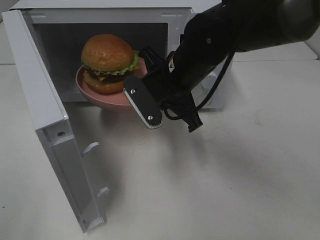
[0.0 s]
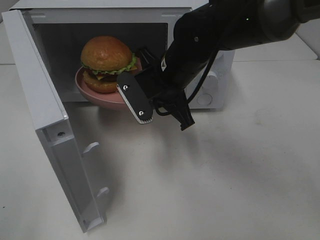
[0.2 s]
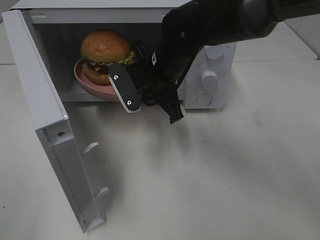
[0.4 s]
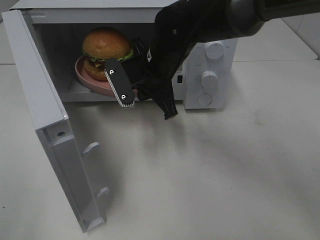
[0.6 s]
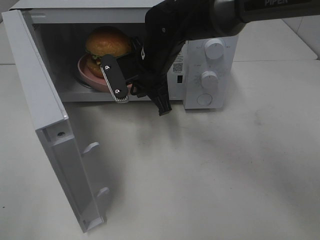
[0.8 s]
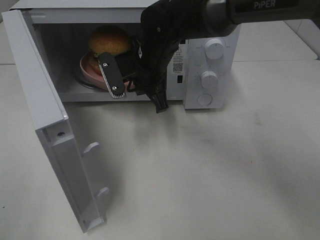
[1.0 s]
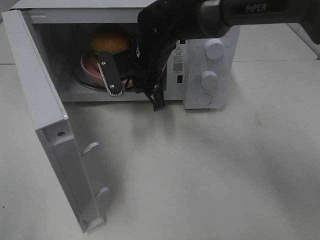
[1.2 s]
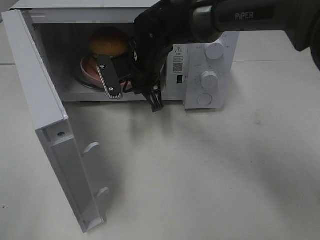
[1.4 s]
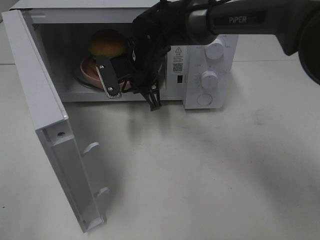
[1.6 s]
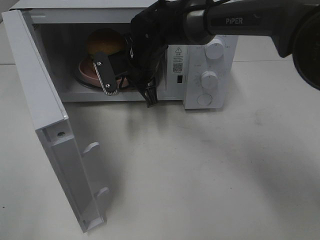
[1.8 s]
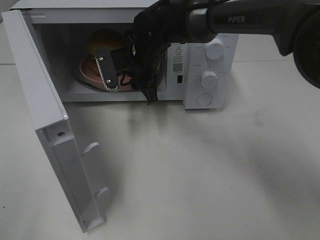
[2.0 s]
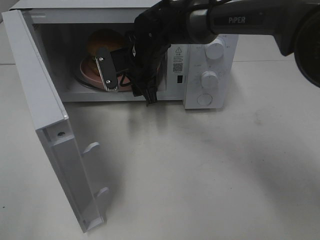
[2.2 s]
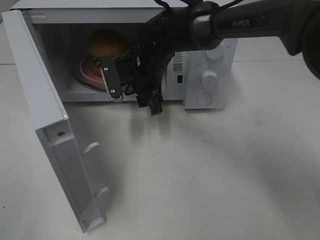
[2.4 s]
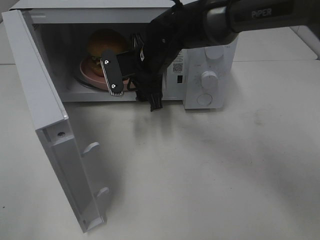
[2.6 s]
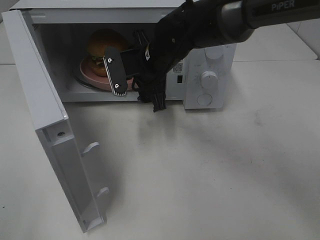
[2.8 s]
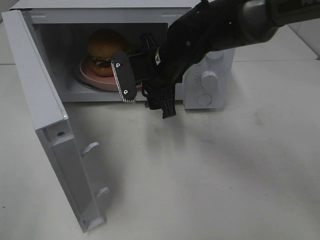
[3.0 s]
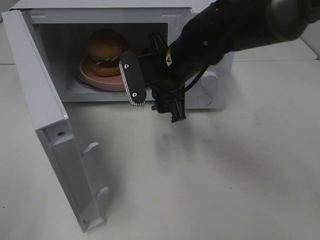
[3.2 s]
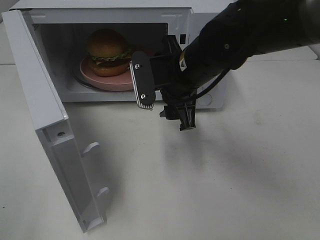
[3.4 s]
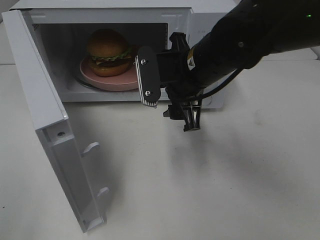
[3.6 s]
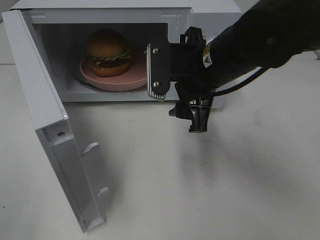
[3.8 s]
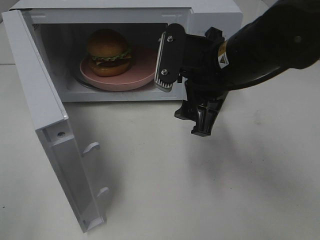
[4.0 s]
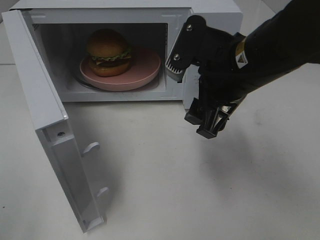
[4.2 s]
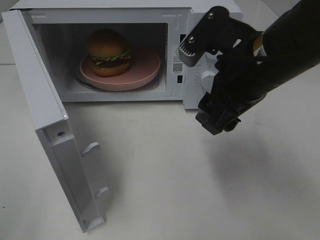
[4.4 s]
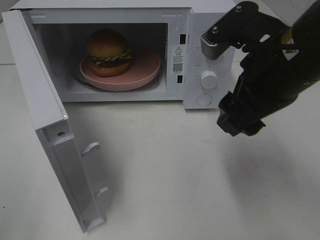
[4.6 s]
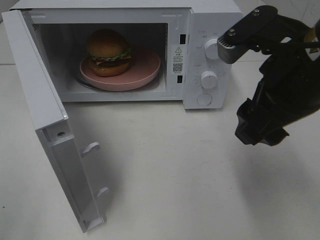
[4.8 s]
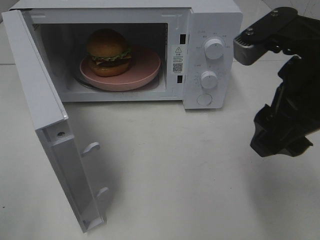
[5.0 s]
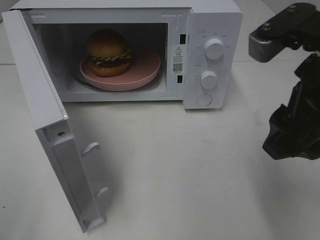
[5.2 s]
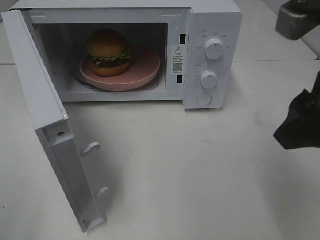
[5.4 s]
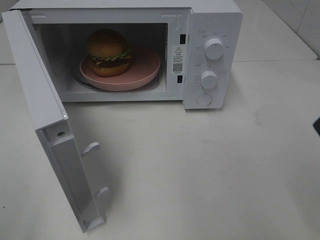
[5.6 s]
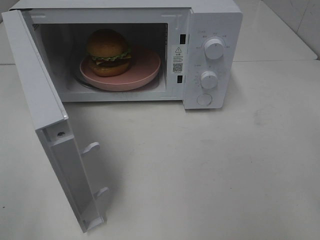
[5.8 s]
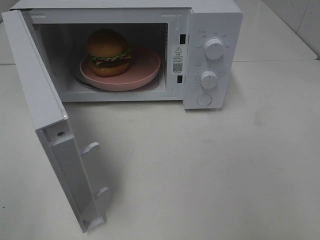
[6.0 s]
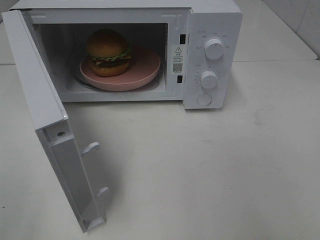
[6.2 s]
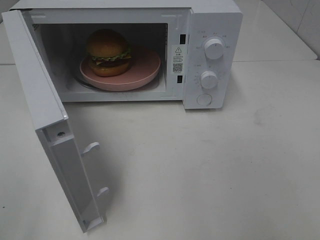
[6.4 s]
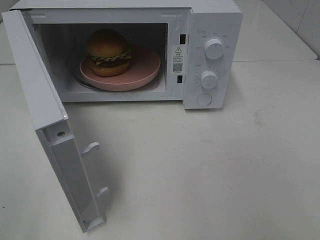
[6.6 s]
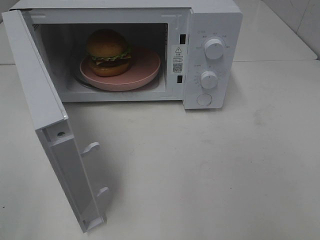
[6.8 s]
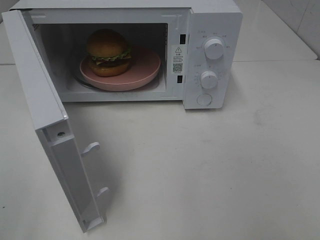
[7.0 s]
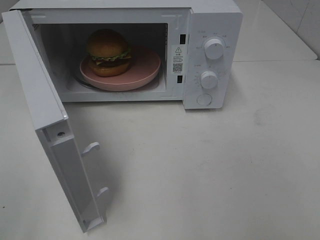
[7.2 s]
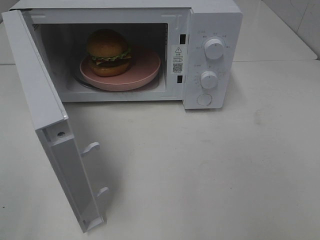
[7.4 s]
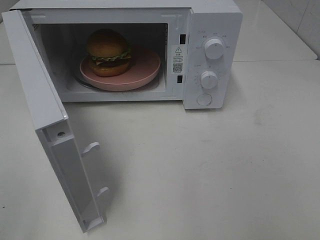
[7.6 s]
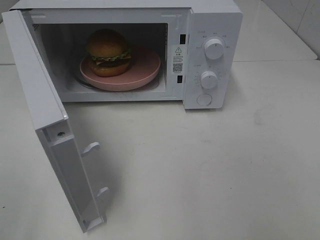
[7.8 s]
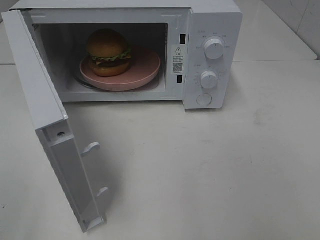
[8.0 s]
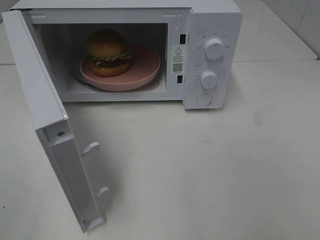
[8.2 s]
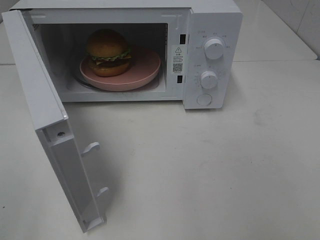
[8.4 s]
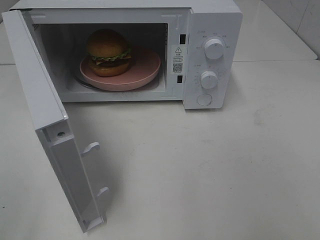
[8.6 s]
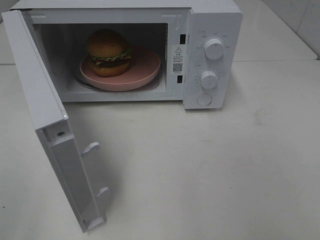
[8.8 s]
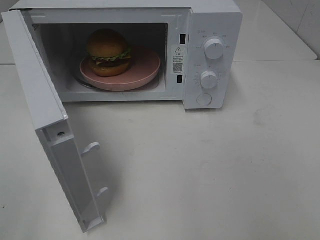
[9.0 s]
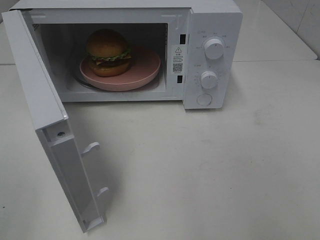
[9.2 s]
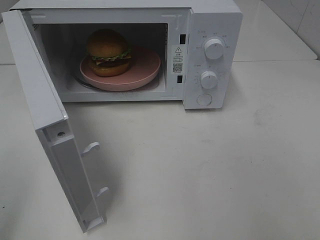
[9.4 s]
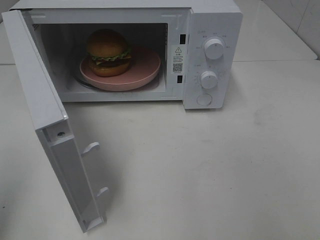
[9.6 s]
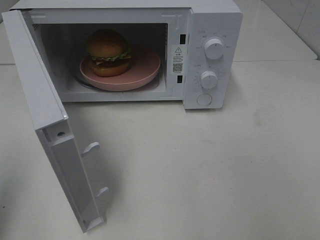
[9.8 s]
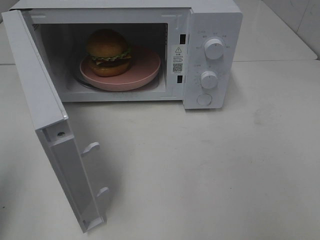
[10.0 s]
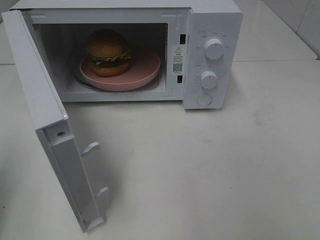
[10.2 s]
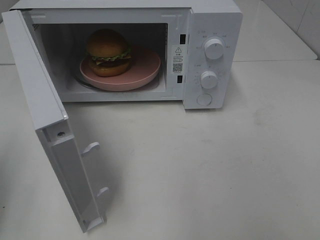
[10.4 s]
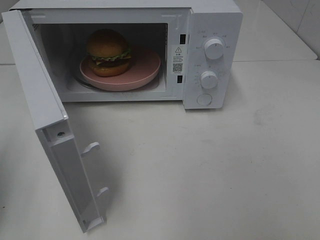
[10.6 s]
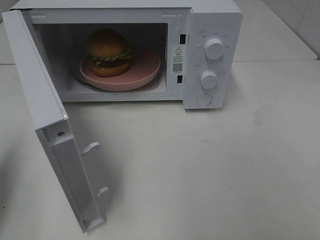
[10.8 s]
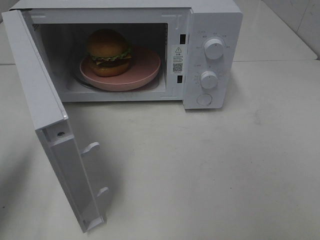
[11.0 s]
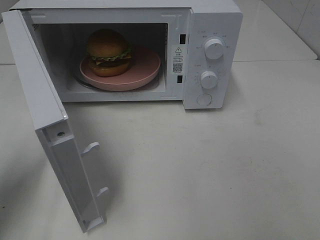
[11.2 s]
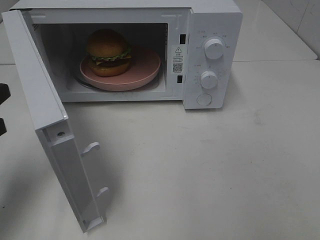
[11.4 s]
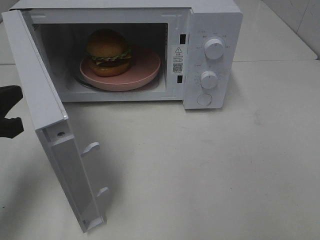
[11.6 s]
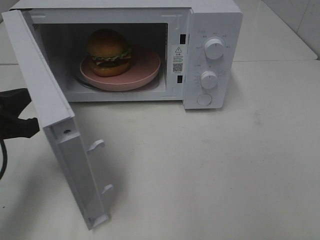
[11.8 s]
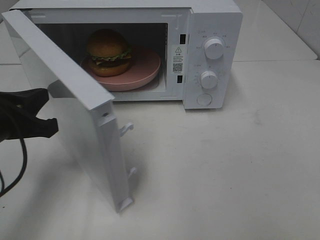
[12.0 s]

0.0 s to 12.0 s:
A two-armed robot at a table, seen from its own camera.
Task of the whole recording: Heat the burger.
Step, 0.0 to 2.8 s: Right hand: place the plate in the microwave.
0.0 to 1.6 s: The right gripper is displaced forward and to the left by some 10 cm.
1.6 to 3.0 s: The right gripper moves backward, roughly 5 cm, and opens up.
3.0 to 4.4 s: The right gripper shifts about 15 cm backward, to the right and upward.
4.4 to 6.0 s: The right gripper travels to the right and backward by about 20 cm.
7.6 to 9.0 s: Neither gripper changes place.
10.4 to 12.0 s: The left gripper heads to the right, forward and downward, covering roughly 15 cm.

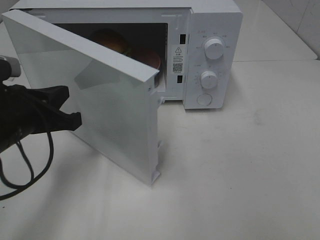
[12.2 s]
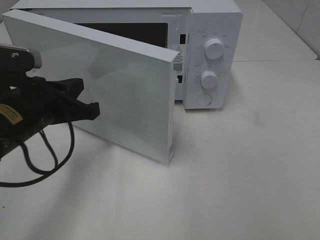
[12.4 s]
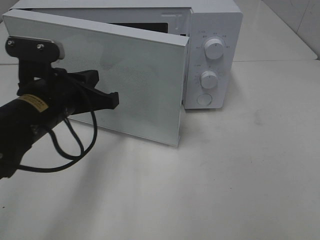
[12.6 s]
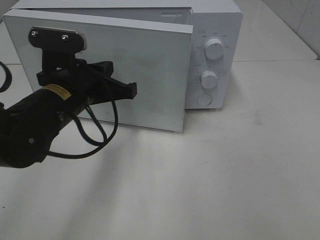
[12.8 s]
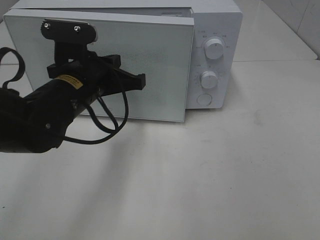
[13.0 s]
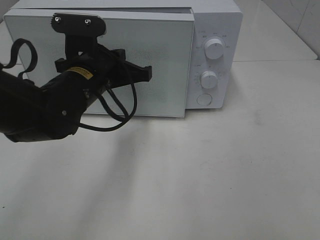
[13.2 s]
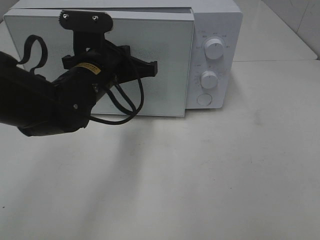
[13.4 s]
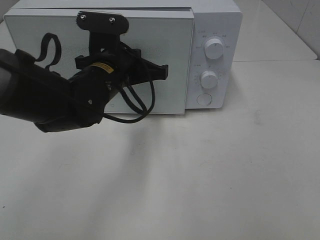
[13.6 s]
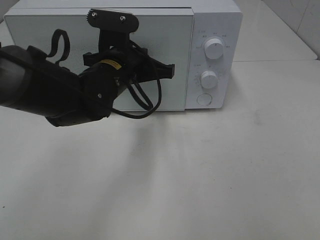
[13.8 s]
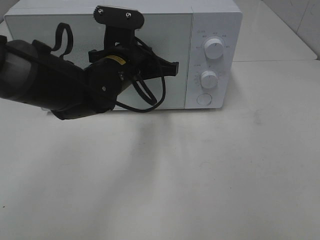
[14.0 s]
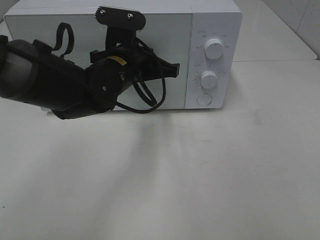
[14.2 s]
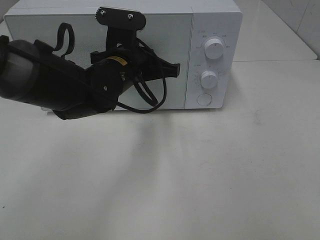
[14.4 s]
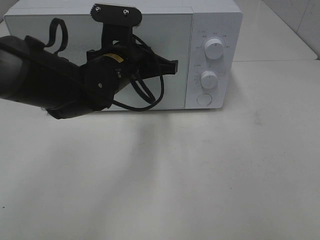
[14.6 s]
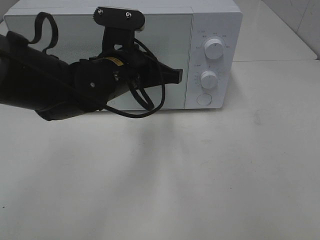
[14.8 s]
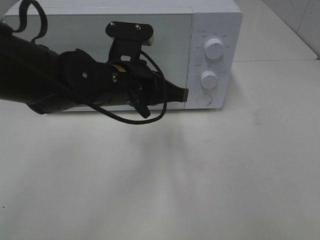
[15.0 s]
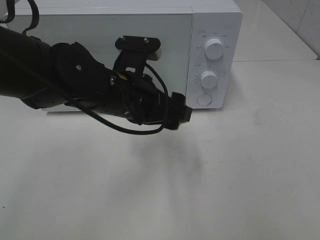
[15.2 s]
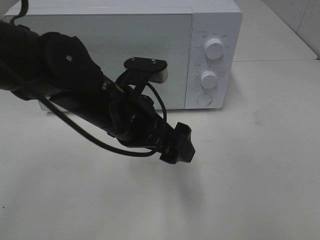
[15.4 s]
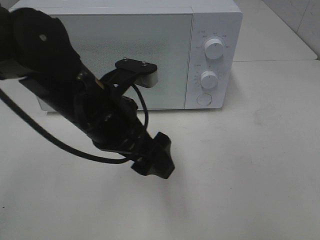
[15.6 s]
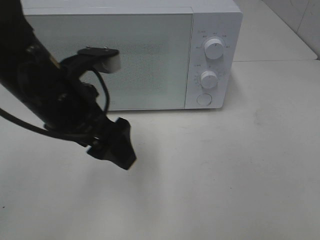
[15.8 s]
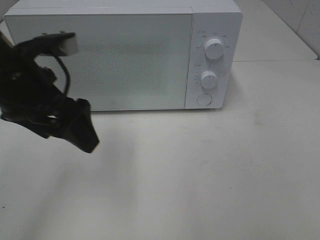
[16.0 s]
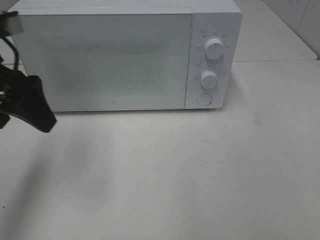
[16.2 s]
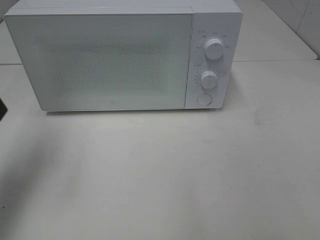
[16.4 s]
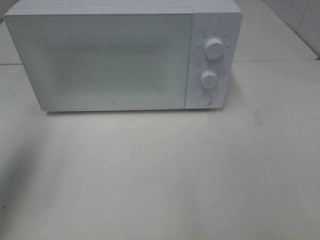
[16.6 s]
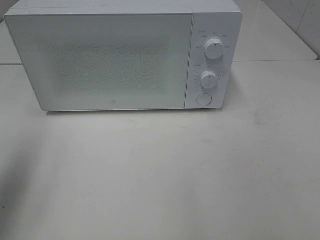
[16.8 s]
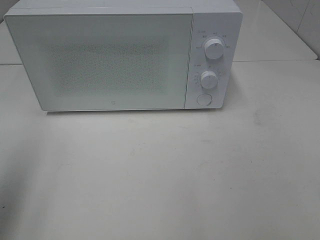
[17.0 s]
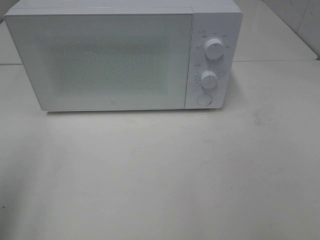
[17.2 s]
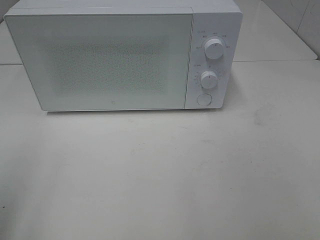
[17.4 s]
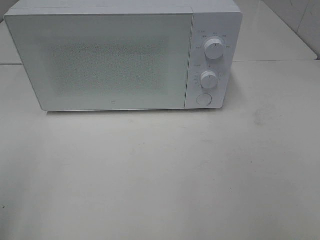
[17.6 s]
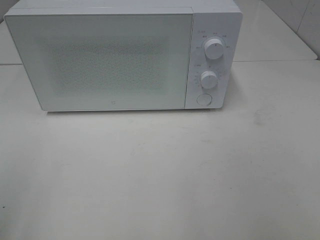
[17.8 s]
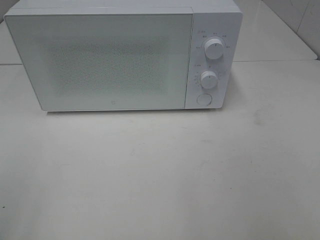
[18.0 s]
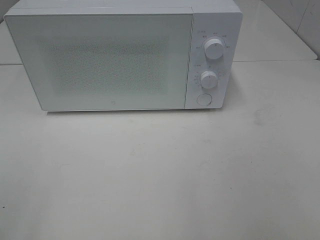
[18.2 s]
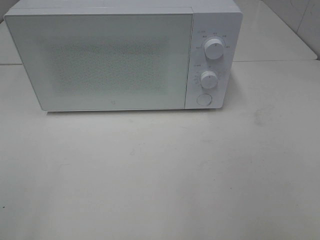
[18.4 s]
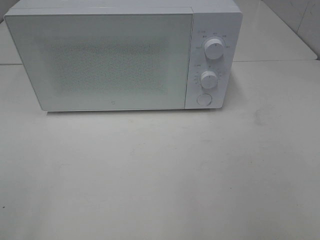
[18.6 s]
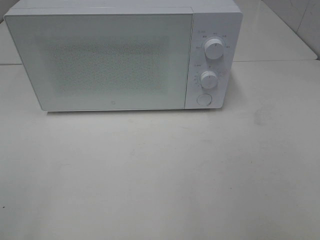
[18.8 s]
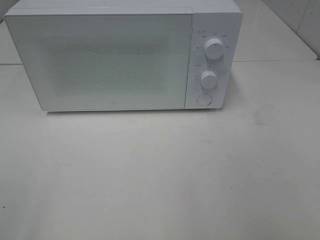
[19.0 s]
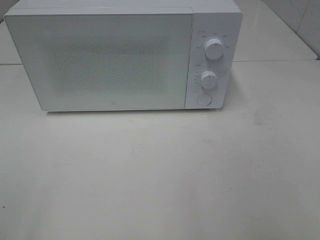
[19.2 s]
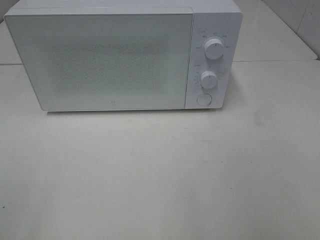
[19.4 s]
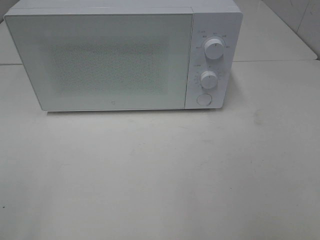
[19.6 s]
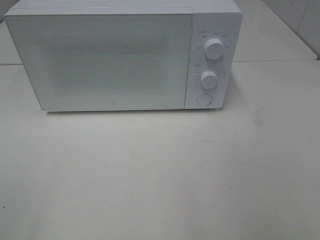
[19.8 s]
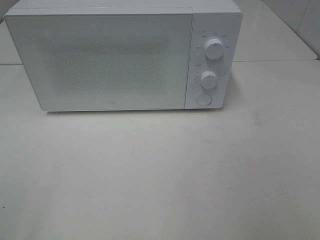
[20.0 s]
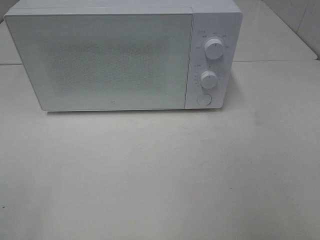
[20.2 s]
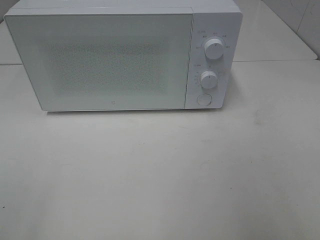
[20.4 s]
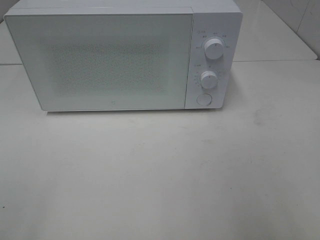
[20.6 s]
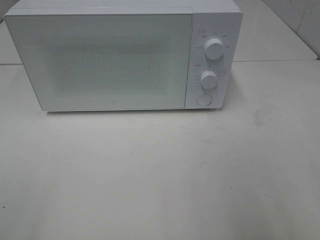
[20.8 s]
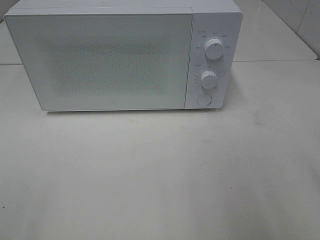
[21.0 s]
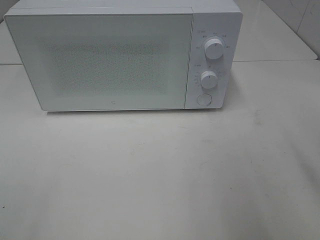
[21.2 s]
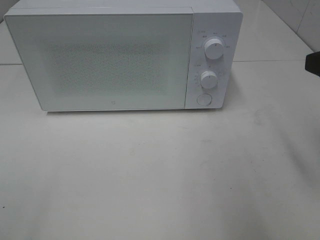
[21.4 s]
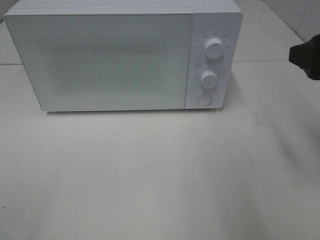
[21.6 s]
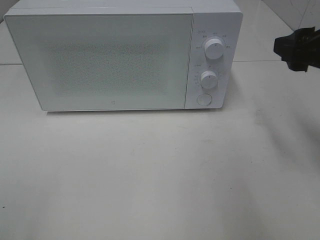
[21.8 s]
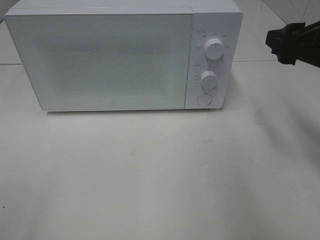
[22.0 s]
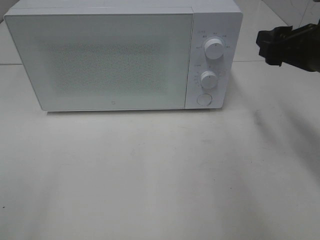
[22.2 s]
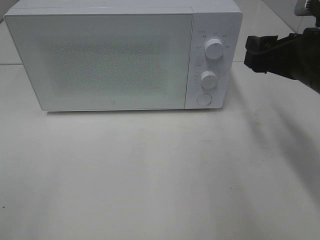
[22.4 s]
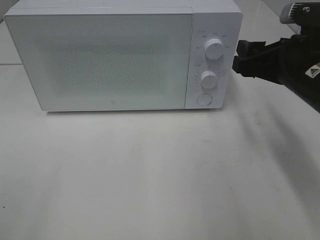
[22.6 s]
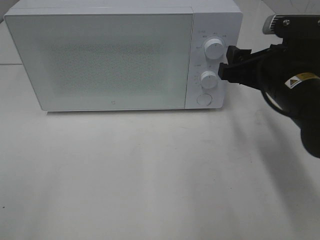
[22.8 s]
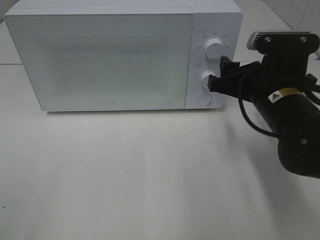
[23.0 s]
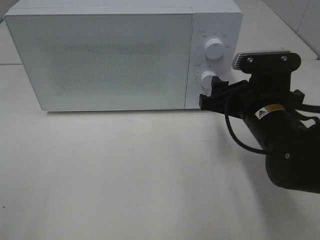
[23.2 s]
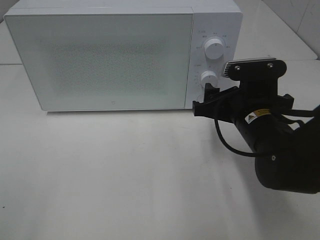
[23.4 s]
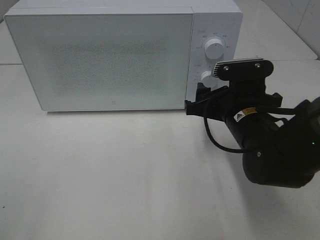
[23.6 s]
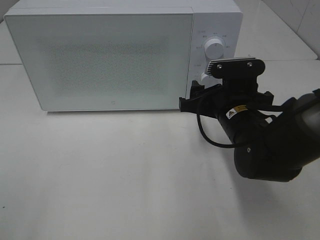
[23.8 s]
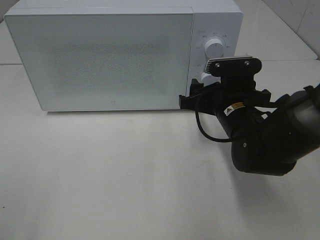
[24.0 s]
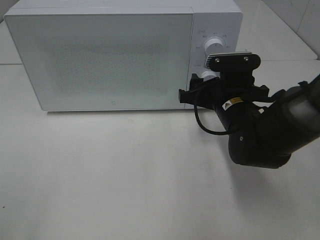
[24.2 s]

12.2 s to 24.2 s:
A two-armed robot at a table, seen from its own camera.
Task of the whole recording: Heat the burger.
Step, 12.2 to 15.0 s: Left hand: close the microwave door.
12.2 to 13.8 s: The left gripper travels to the right and forward by approximately 15 cm.
13.8 to 15.2 s: The left gripper heads backward, covering approximately 5 cm, and opens its fingers.
15.2 to 16.6 s: The left gripper heads to the left and upward, covering about 30 cm.
16.6 to 18.2 s: The left gripper shifts about 20 cm backward.
18.2 to 19.8 s: Both grippers stay about where they are.
21.2 to 22.6 s: The right gripper travels forward, downward and to the left by some 15 cm.
22.6 to 24.2 s: The right gripper shifts some 10 cm downward and to the left.
